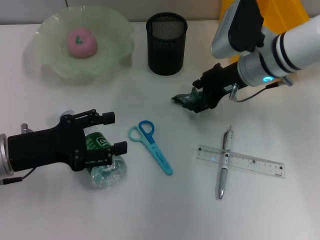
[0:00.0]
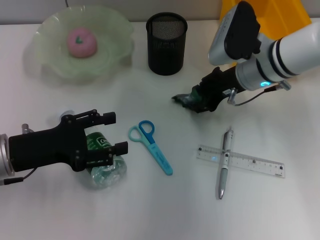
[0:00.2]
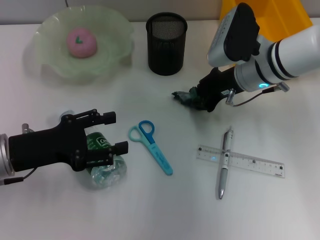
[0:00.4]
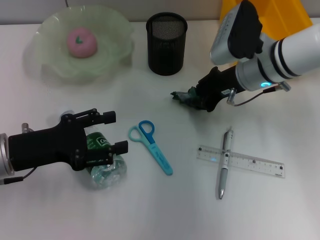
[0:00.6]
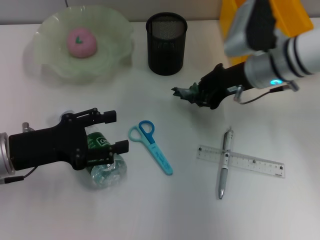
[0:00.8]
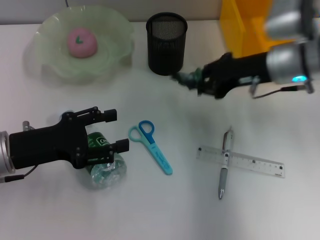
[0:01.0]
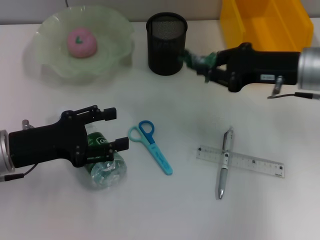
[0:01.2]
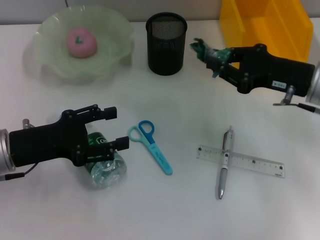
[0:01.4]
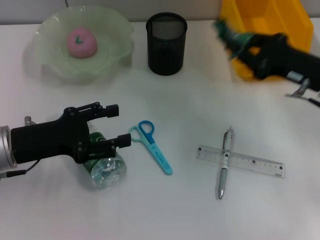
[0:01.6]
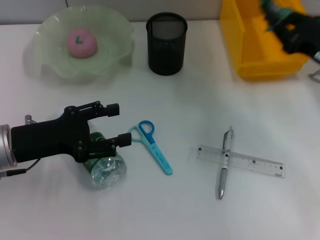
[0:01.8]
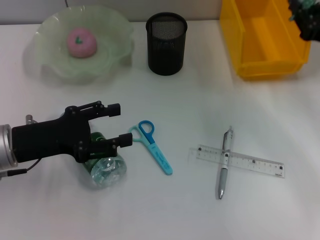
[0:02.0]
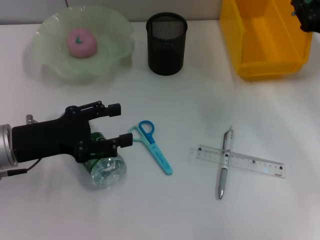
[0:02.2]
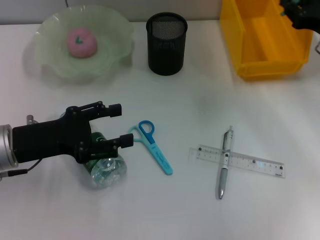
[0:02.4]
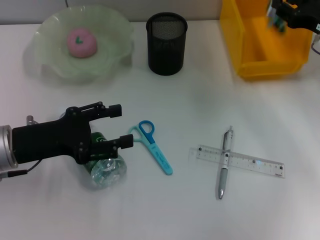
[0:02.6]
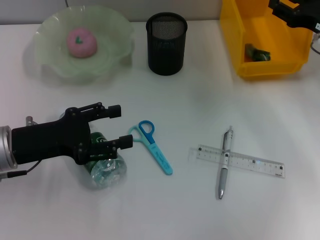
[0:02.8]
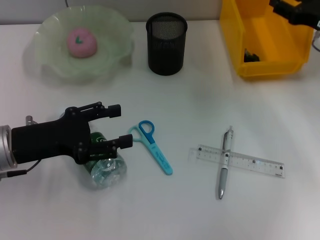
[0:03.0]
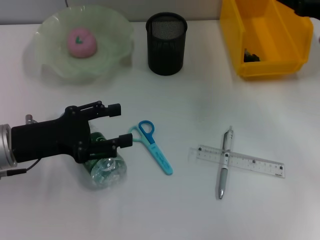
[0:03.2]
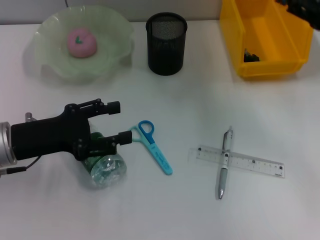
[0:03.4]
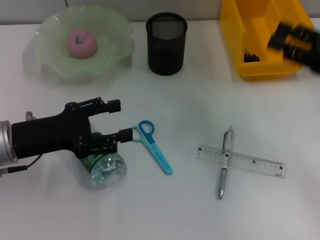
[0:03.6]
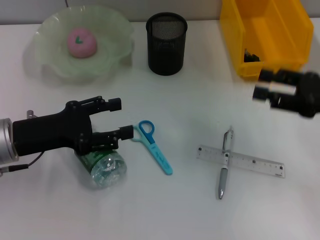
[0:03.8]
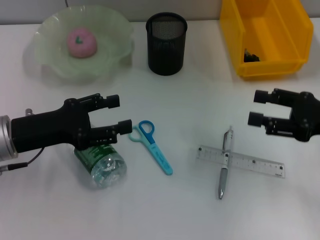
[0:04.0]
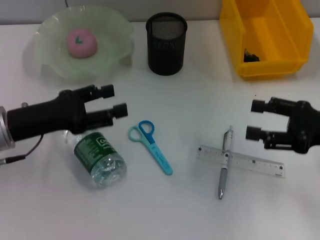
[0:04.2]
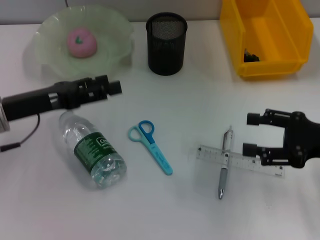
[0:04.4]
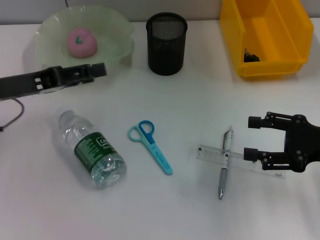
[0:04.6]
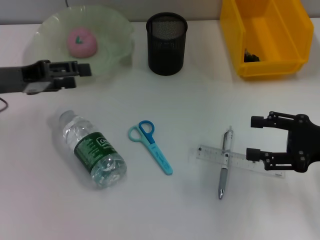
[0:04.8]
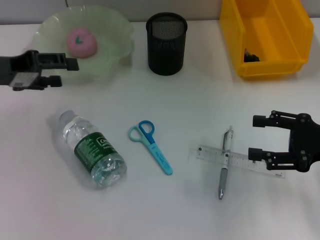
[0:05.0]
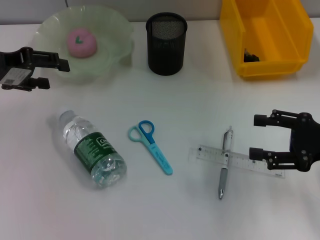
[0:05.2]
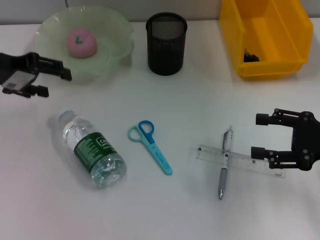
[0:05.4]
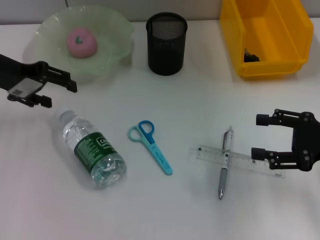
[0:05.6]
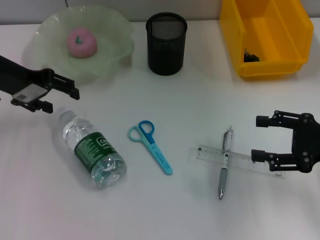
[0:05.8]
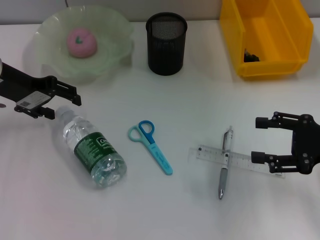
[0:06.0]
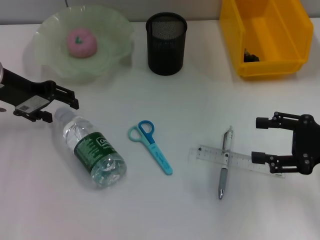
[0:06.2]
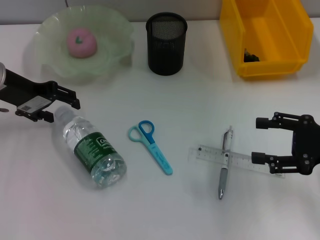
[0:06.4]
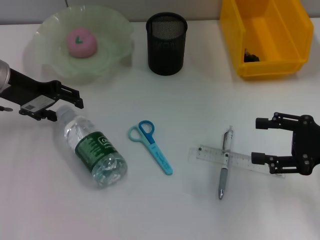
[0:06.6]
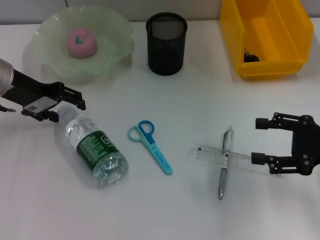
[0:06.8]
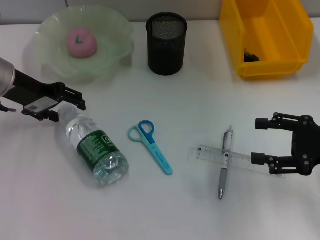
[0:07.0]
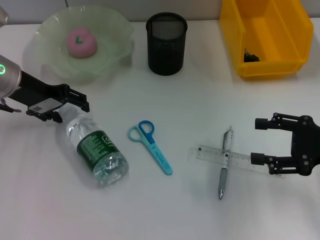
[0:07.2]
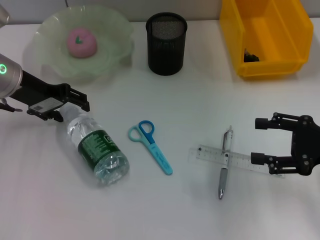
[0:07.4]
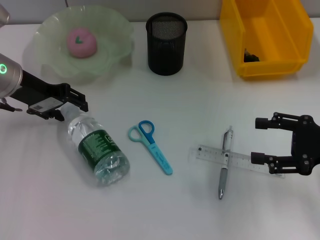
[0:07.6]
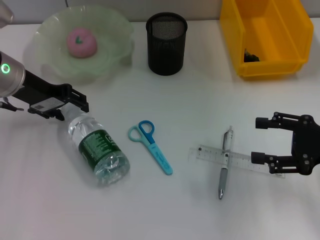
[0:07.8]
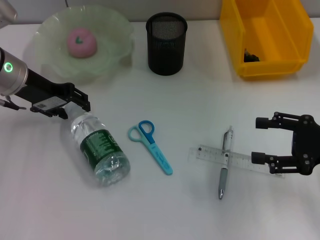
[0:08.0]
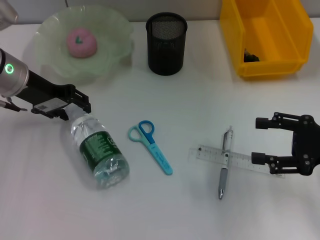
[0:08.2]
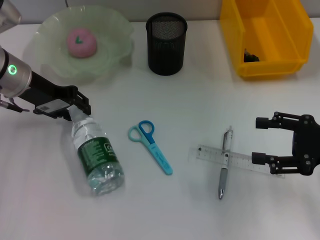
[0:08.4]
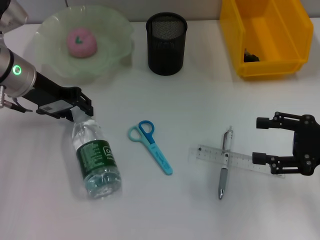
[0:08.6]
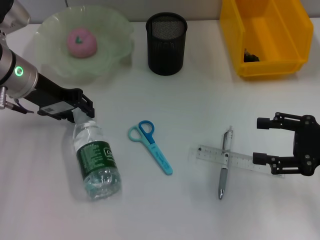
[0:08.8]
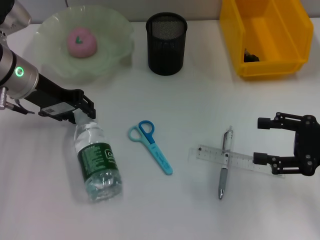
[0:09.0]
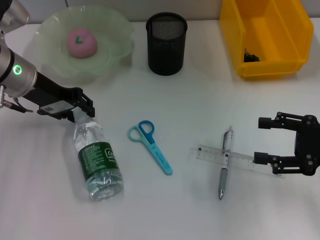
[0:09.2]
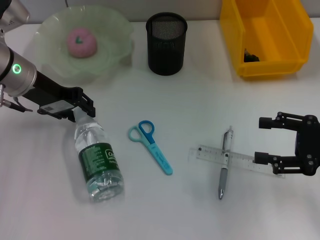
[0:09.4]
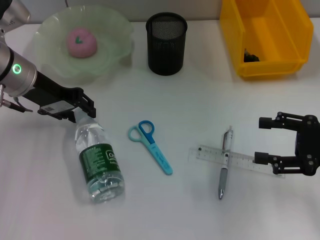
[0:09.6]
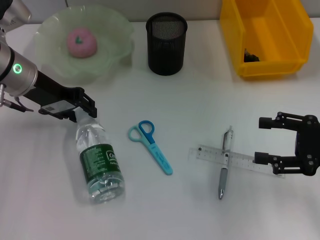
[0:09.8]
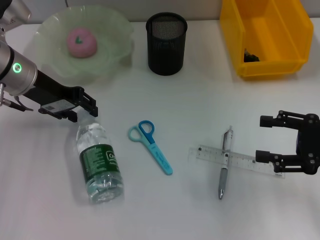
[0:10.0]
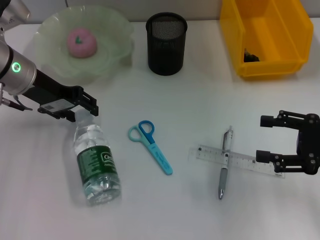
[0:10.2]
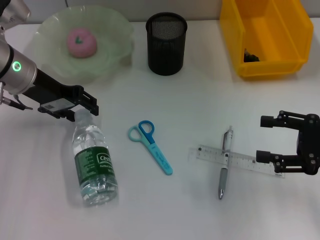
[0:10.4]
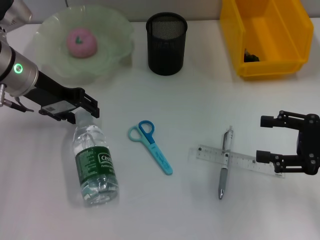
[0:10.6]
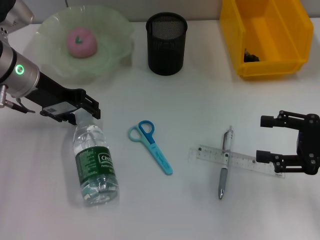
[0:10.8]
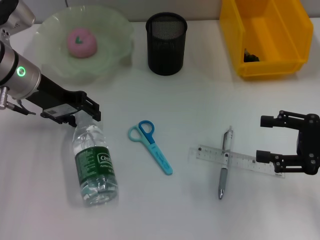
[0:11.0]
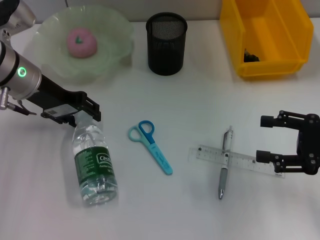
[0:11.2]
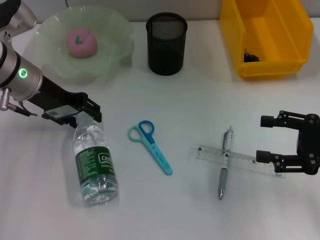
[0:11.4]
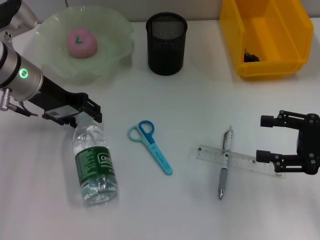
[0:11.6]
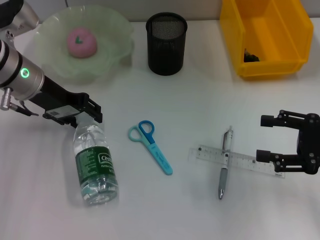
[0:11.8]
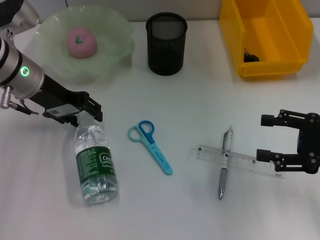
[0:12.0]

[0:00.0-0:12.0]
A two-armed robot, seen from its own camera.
Step, 0:00.8 to 0:03.0: Place the plastic into the trash can with the right hand.
0:00.0 to 0:01.6: The right gripper shifts some 15 cm to the right and backward, and closes.
0:01.6 to 0:03.0: The right gripper travels forward by some 5 cm, and opens up.
0:03.0 to 0:04.4: The right gripper travels backward by some 15 cm.
0:04.4 to 0:06.0: The left gripper moves forward, roughly 10 cm.
0:06.0 to 0:07.6: The grippers make only small movements.
0:07.6 to 0:09.0: The left gripper closes its fingers.
0:09.0 to 0:12.0: The two grippers keep their place.

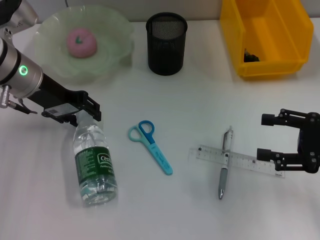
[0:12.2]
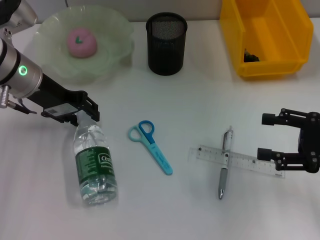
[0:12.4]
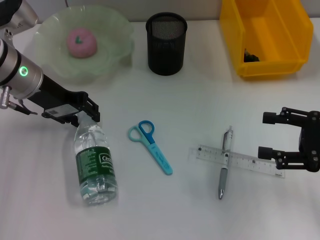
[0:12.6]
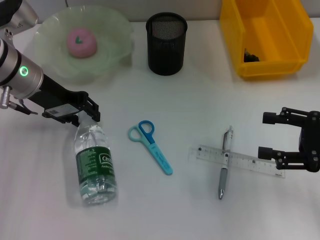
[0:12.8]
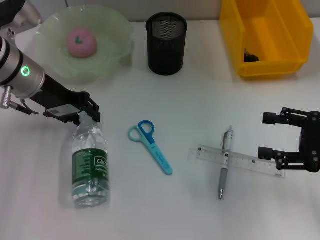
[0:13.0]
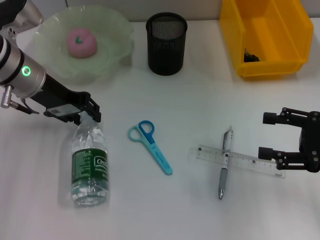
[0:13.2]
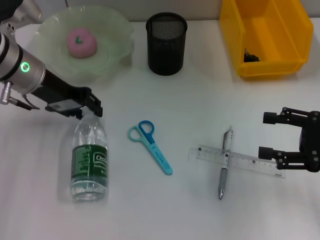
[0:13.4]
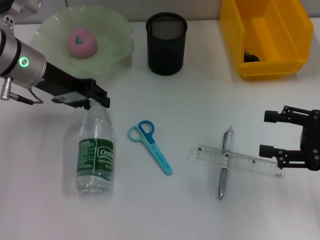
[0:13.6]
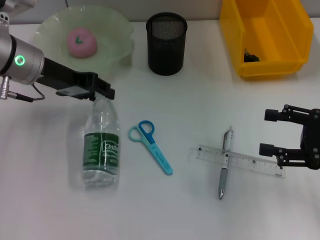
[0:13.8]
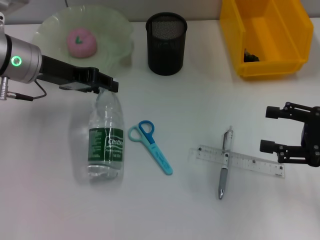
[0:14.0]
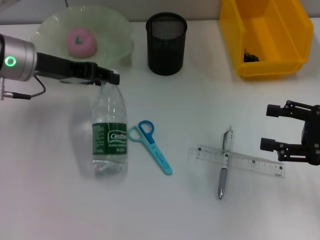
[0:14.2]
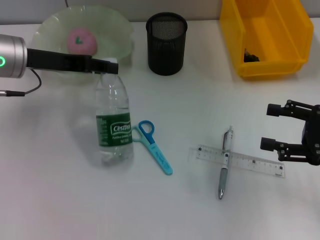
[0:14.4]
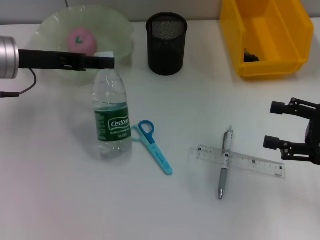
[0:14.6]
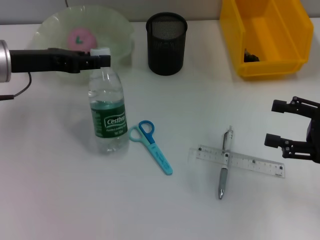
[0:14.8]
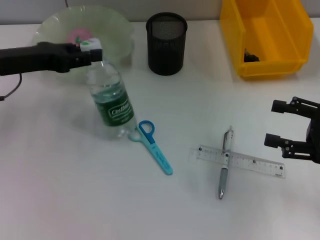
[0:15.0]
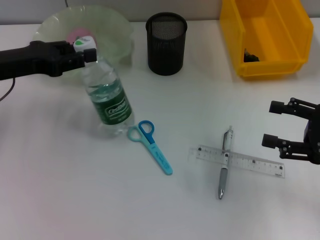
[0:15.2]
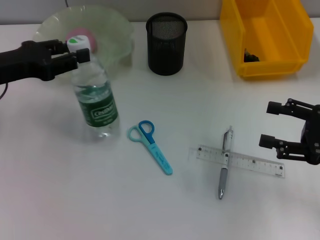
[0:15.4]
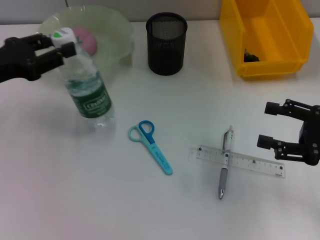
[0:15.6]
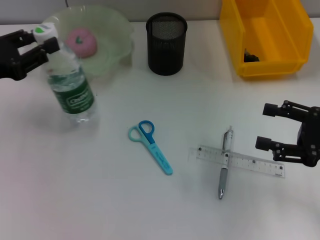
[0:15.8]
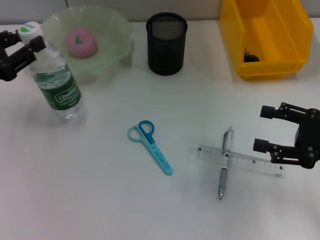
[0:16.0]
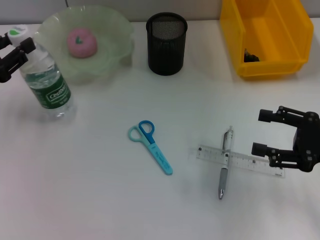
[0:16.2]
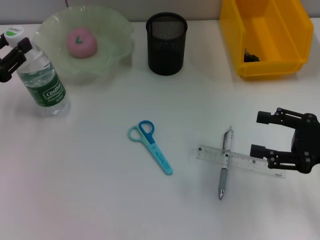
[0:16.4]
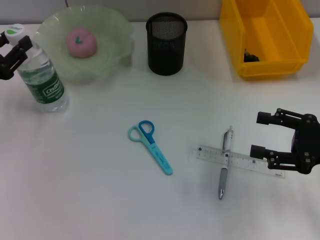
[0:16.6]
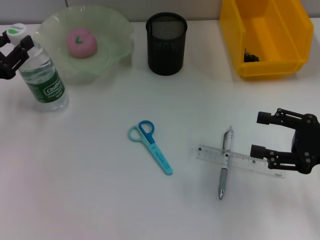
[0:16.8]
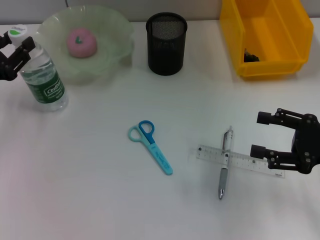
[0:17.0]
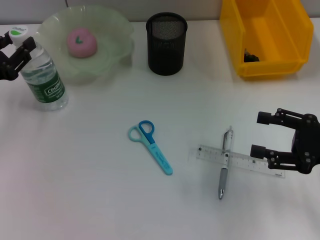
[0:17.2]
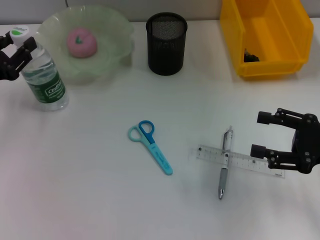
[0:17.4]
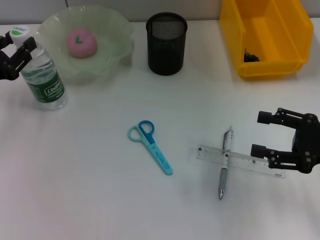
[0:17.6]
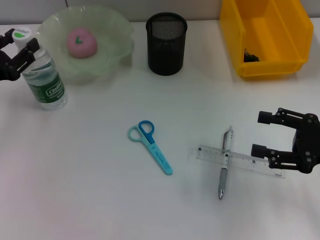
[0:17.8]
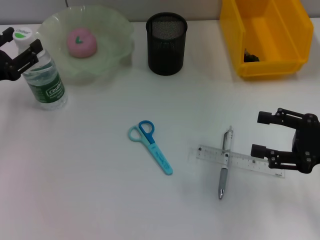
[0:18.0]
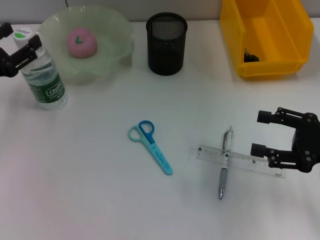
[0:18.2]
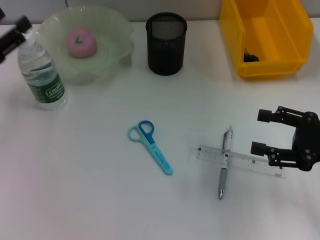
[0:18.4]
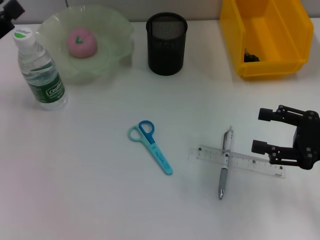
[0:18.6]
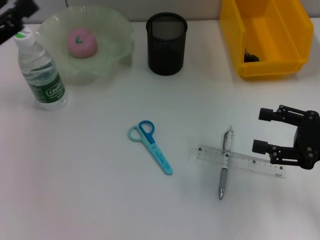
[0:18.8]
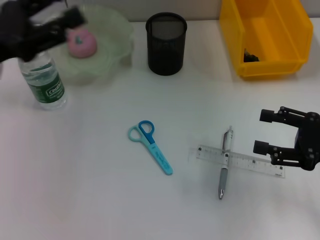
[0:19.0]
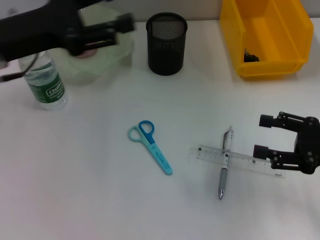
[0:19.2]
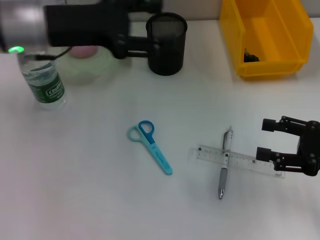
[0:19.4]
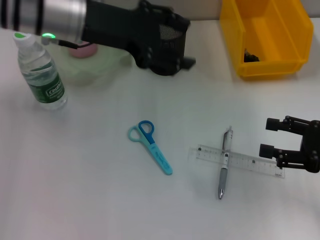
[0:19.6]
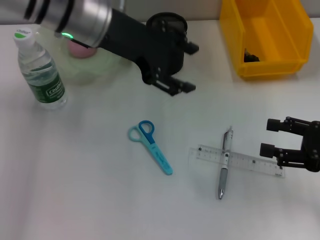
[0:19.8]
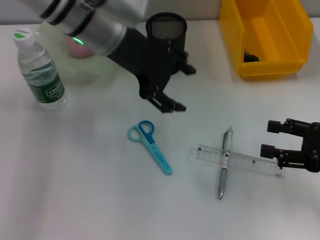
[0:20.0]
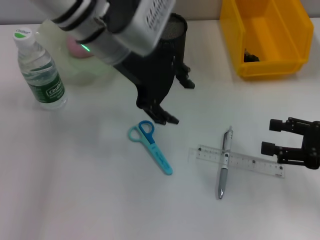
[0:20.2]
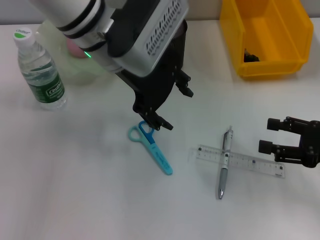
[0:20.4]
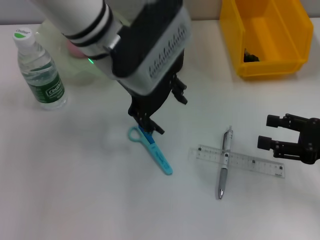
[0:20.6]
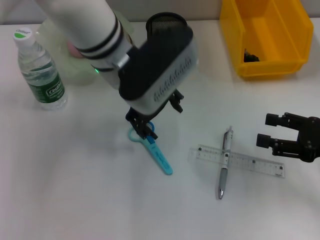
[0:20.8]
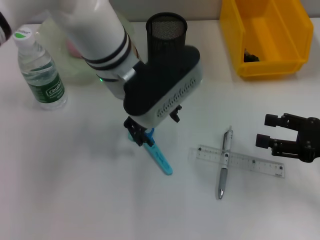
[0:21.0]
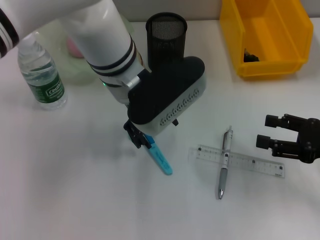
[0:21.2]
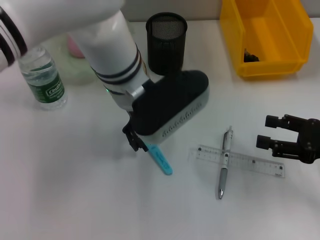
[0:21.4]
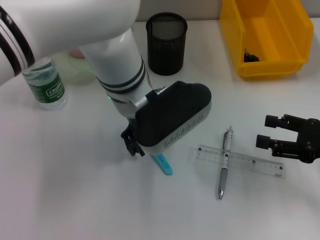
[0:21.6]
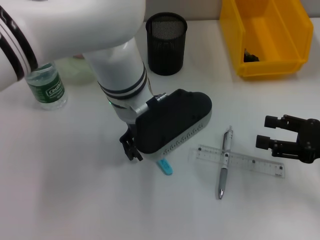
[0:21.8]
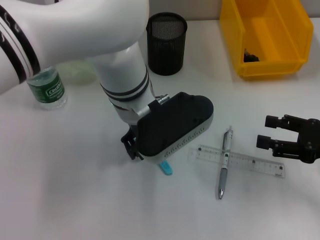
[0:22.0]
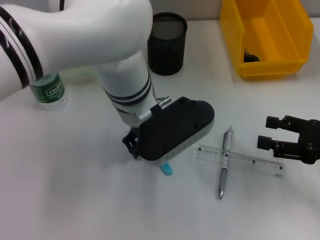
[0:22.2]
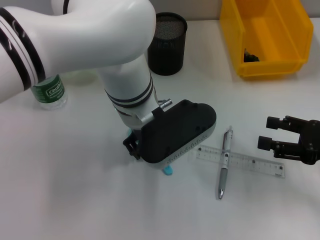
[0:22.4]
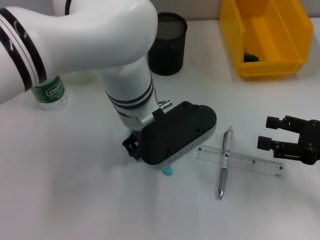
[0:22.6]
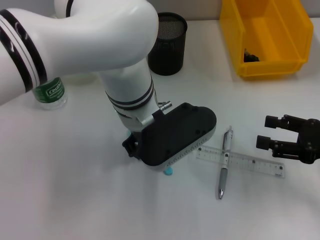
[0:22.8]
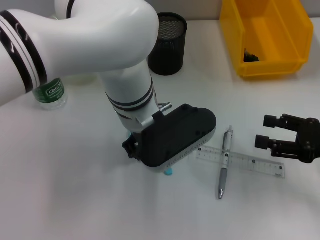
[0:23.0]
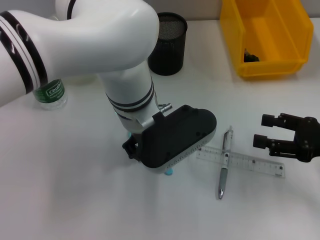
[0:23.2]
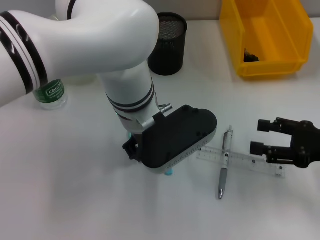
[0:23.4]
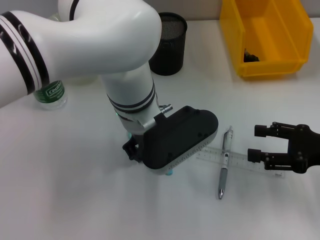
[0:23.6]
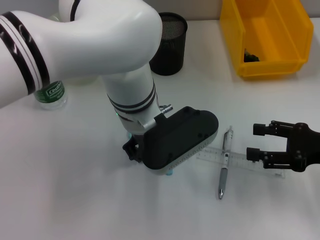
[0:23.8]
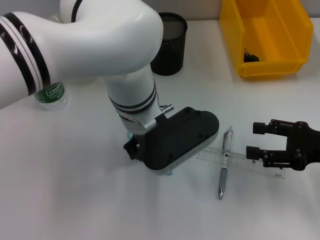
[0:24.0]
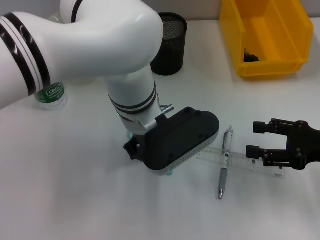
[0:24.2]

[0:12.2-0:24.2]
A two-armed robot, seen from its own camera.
Step, 0:13.4 to 0:18.2: Place the water bottle on the table with the left hand.
0:12.2 to 0:13.8: The grippers move only a little.
0:13.8 to 0:15.2: The left gripper moves to the left and backward, approximately 10 cm.
0:15.2 to 0:16.6: The left gripper ends up roughly 10 cm from where it was.
0:16.6 to 0:18.2: The left gripper opens up.
0:18.2 to 0:19.8: The left gripper travels to the right, upward and forward by some 25 cm.
0:19.8 to 0:21.2: The left gripper travels to the right by roughly 5 cm.
0:21.2 to 0:22.6: The left gripper closes up.
0:22.6 to 0:24.2: The grippers move only a little.
